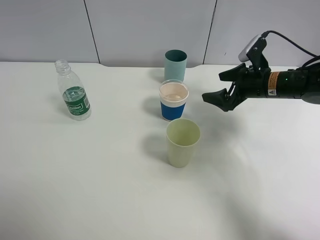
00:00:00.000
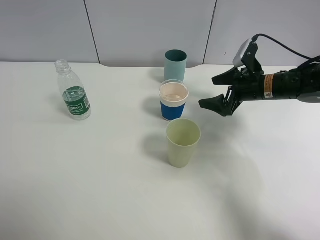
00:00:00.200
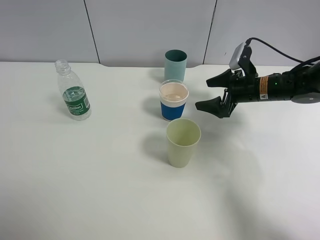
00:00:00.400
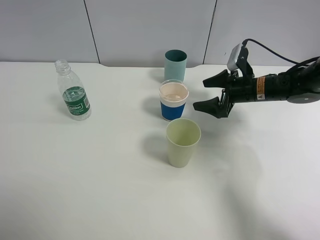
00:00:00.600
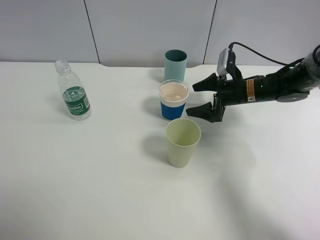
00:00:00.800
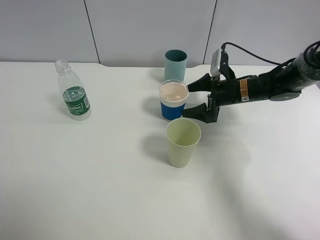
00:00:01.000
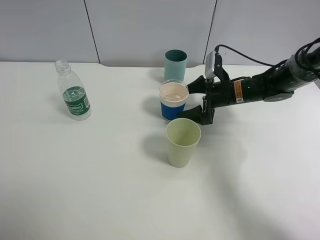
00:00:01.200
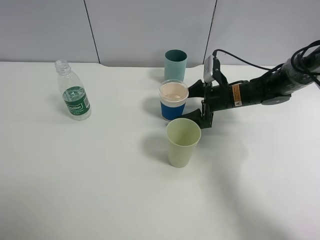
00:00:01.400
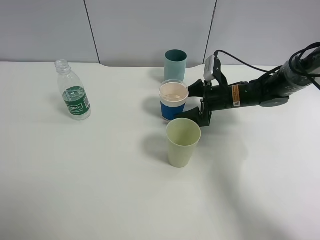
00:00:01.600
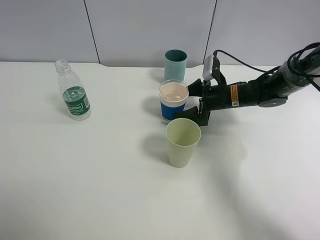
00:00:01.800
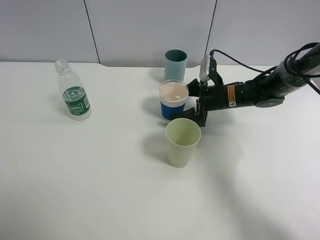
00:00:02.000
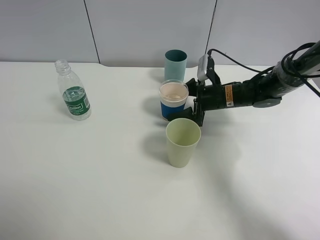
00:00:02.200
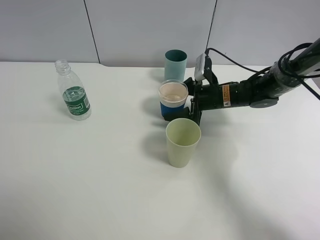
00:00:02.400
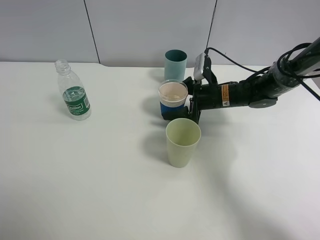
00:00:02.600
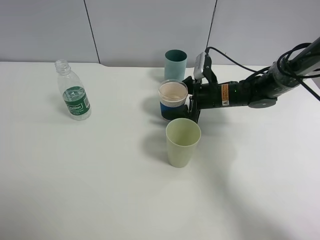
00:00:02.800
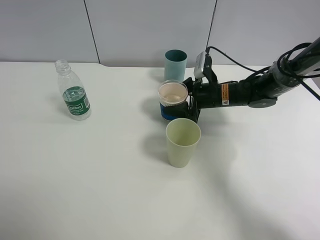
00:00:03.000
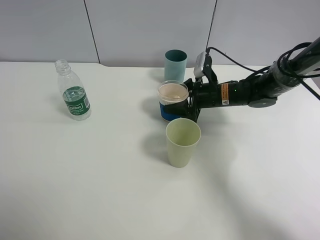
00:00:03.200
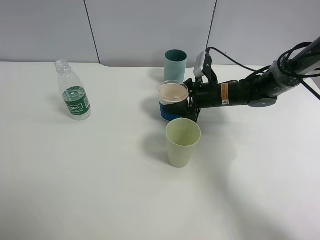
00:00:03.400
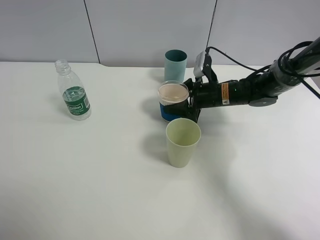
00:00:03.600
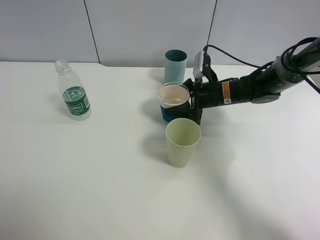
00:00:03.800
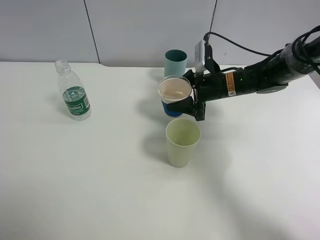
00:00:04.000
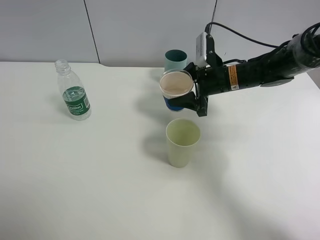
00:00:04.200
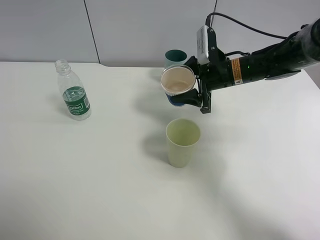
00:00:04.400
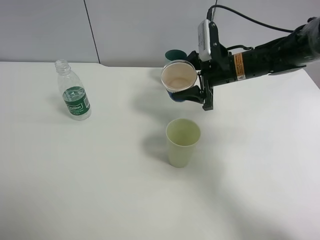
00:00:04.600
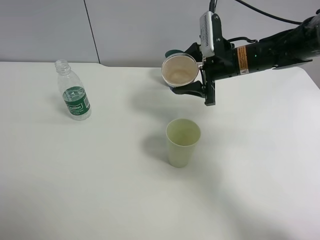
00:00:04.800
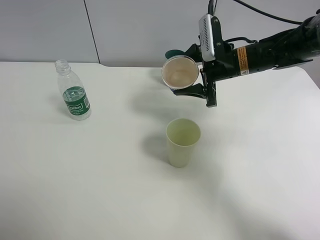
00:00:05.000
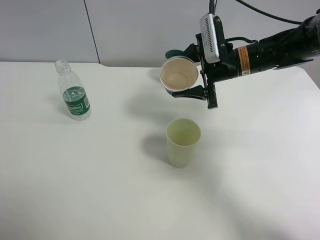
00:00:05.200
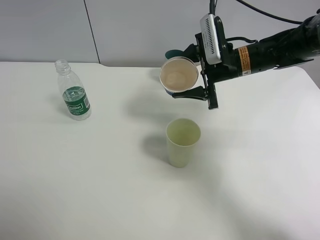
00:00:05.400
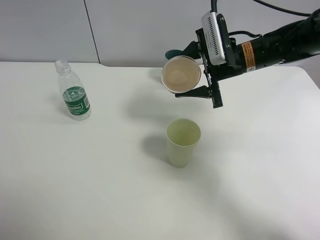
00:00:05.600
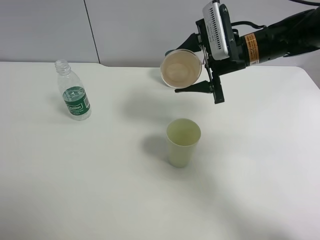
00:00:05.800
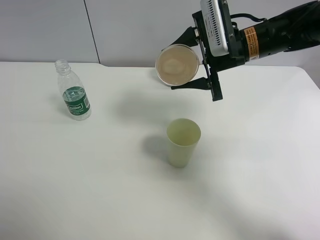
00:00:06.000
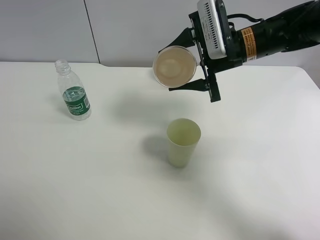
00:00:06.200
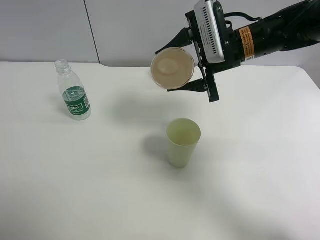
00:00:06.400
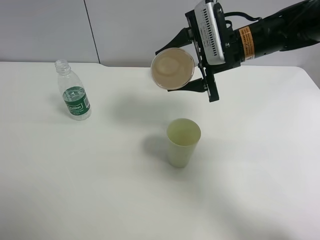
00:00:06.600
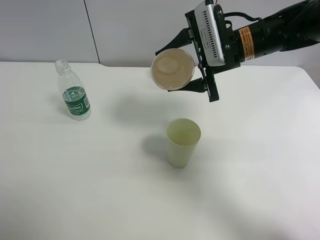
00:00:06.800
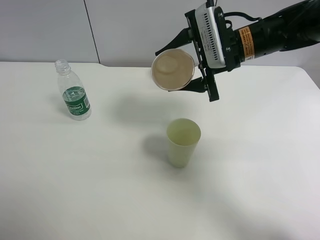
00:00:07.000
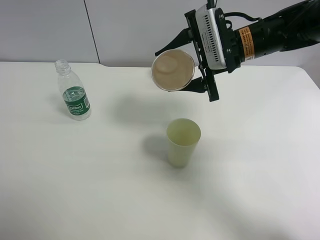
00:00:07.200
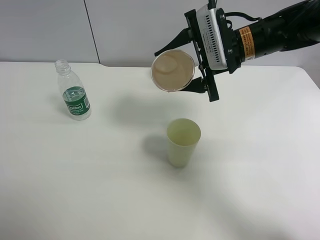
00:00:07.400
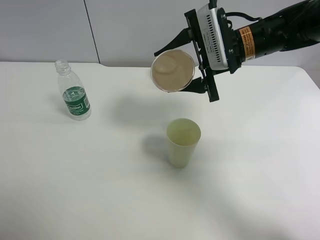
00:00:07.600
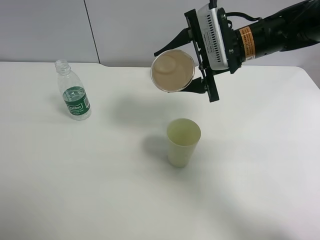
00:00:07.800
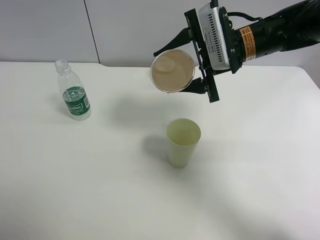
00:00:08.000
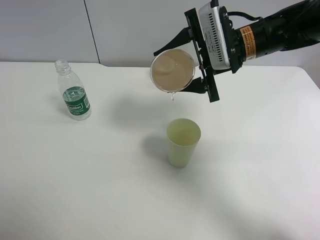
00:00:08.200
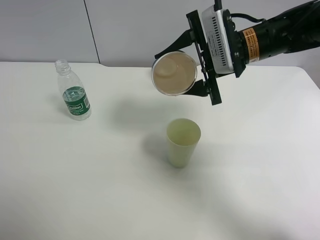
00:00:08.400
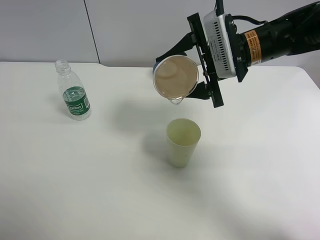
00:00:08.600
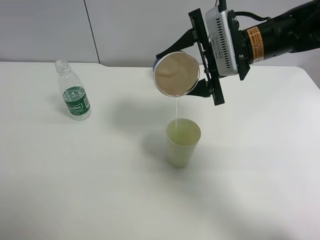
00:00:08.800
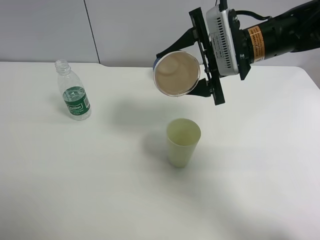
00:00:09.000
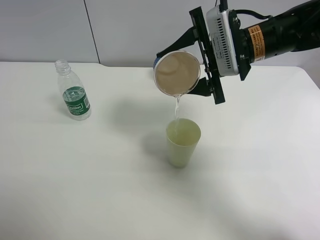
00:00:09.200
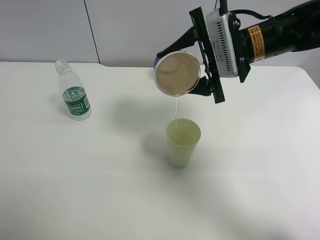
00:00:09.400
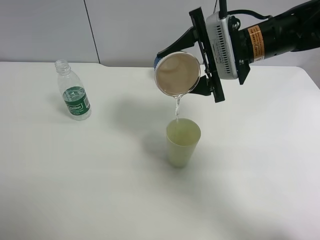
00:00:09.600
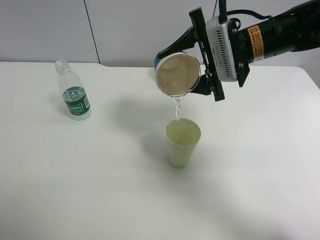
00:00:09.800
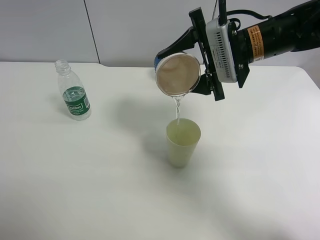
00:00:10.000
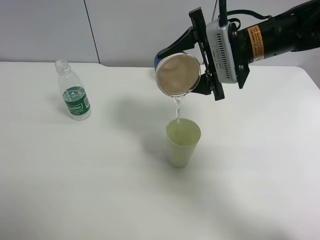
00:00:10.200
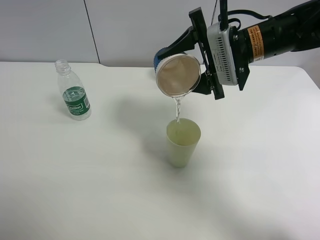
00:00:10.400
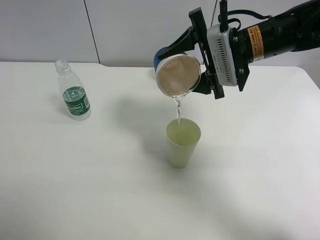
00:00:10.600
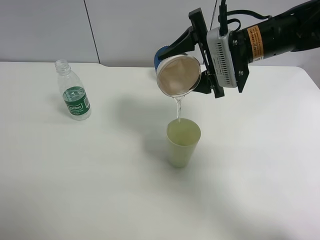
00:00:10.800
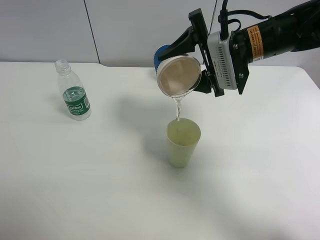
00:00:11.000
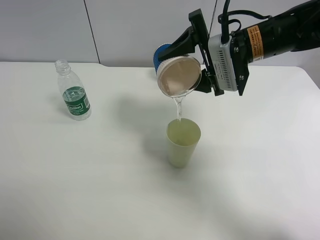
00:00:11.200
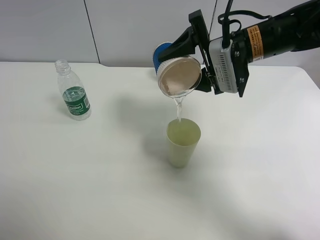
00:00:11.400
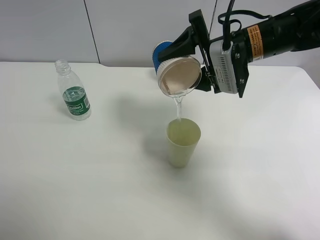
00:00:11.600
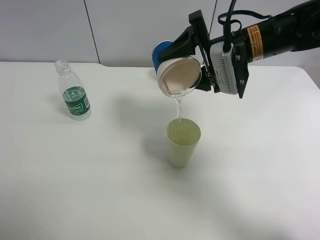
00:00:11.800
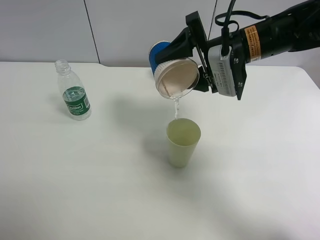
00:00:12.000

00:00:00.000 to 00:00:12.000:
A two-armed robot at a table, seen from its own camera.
Task of the whole recording: use a clamp to hold the bottle of the drink, pour the beverage into a random cup, then clamp the cup containing the drink and pour the drink into another random cup.
Step, 00:00:00.000 to 00:00:03.800: Pick up the paper cup with right gripper.
00:00:00.000 to 00:00:01.600: The right gripper shifts about 10 cm downward and to the left.
00:00:01.600 to 00:00:03.000: The right gripper closes.
00:00:03.000 to 00:00:04.400: The right gripper goes some 10 cm upward.
00:00:04.400 to 00:00:06.000: The right gripper moves upward, about 10 cm.
00:00:06.000 to 00:00:09.000: The grippers stay close to where they were, moving slightly.
00:00:09.000 to 00:00:10.400: There are only small adjustments of the grippers.
00:00:10.400 to 00:00:12.000: The grippers stay close to where they were, moving slightly.

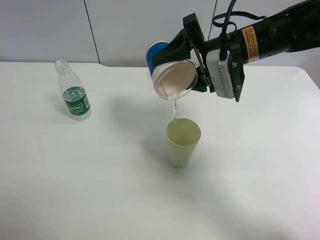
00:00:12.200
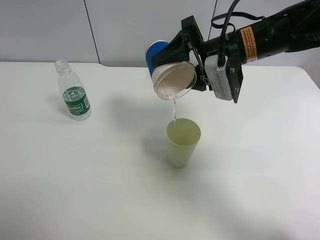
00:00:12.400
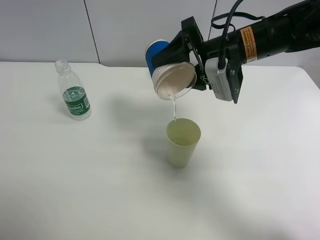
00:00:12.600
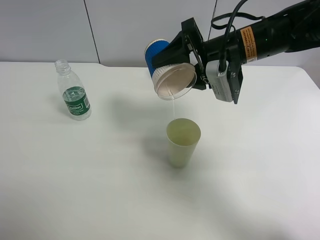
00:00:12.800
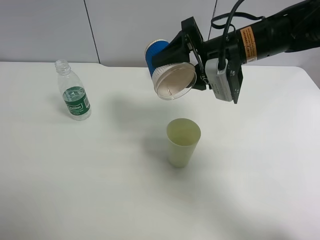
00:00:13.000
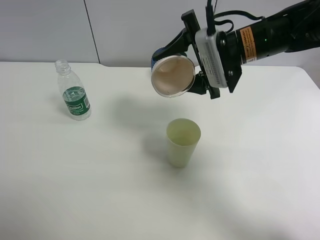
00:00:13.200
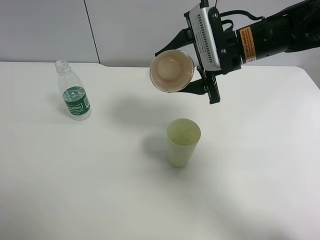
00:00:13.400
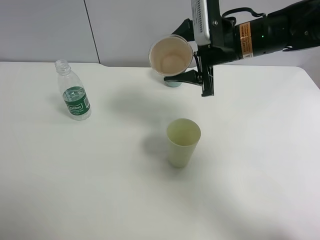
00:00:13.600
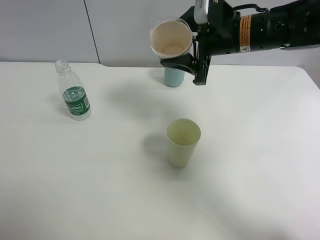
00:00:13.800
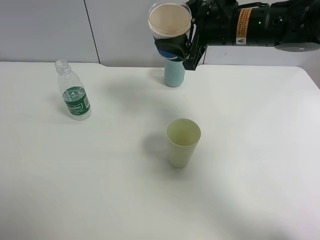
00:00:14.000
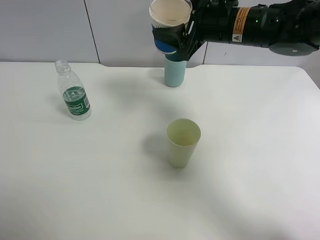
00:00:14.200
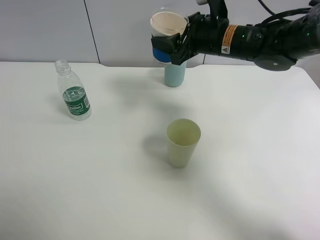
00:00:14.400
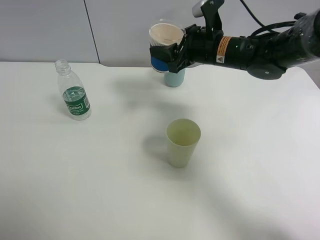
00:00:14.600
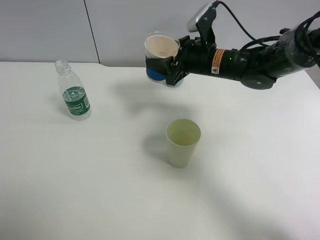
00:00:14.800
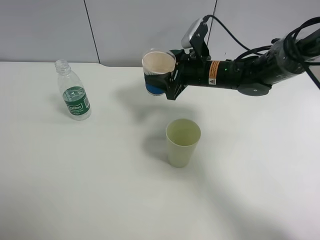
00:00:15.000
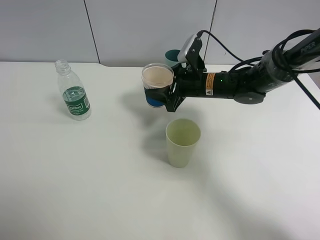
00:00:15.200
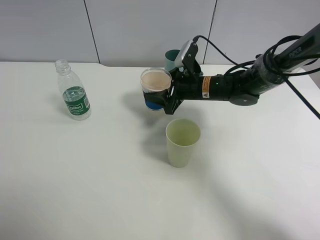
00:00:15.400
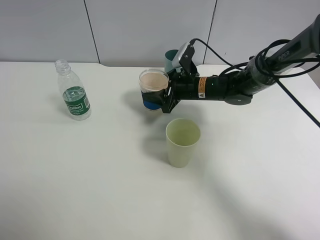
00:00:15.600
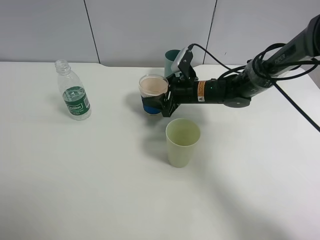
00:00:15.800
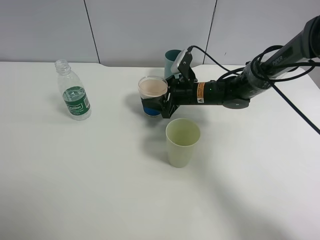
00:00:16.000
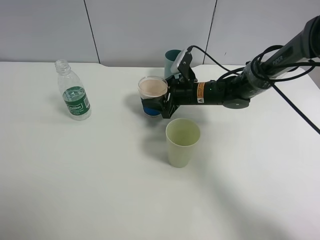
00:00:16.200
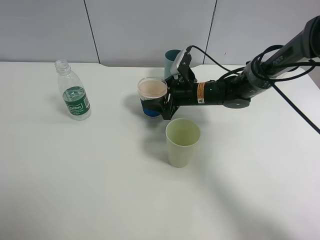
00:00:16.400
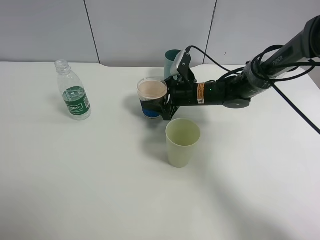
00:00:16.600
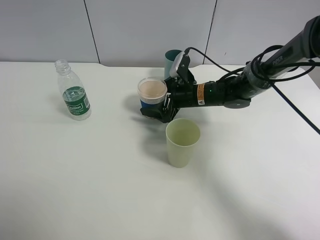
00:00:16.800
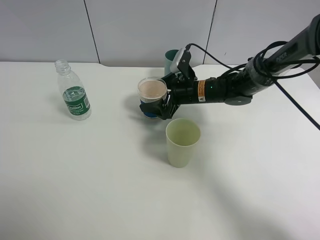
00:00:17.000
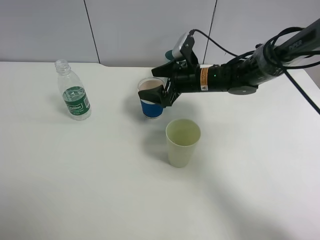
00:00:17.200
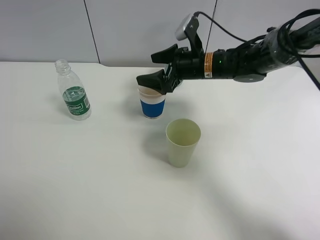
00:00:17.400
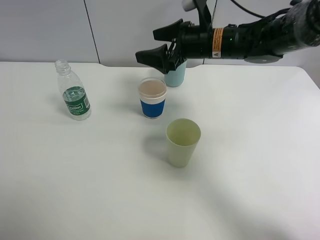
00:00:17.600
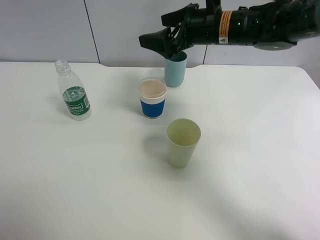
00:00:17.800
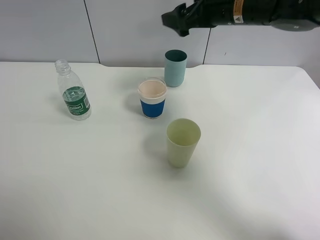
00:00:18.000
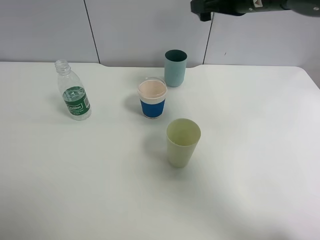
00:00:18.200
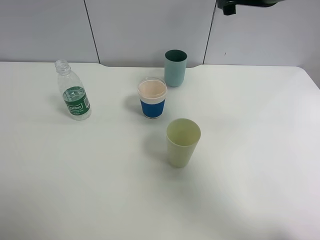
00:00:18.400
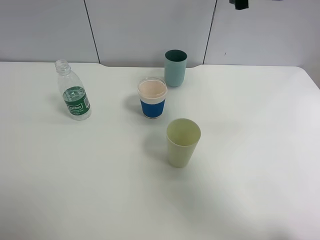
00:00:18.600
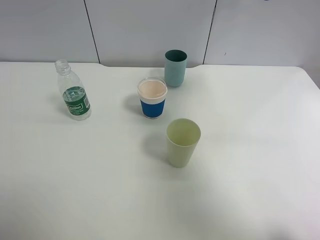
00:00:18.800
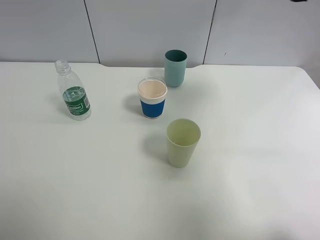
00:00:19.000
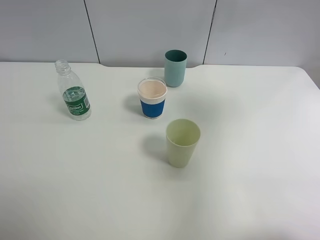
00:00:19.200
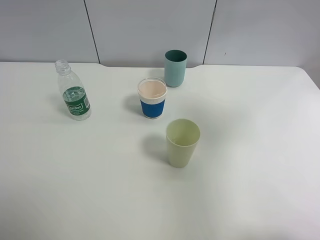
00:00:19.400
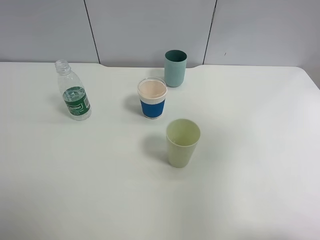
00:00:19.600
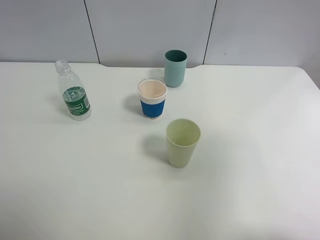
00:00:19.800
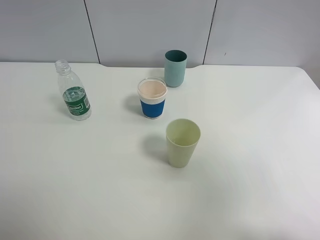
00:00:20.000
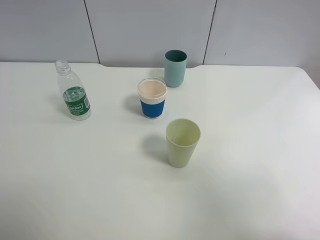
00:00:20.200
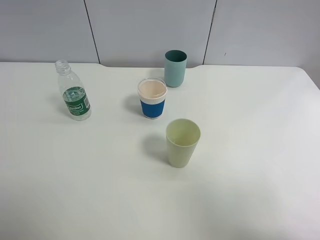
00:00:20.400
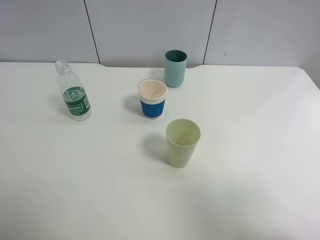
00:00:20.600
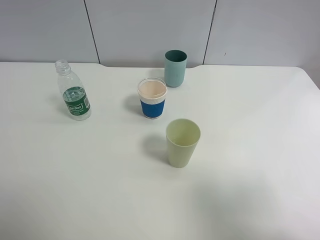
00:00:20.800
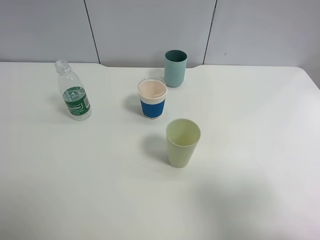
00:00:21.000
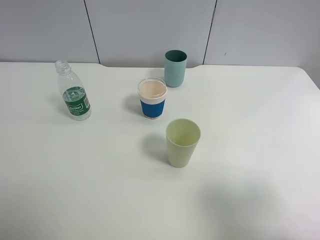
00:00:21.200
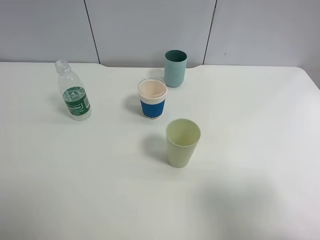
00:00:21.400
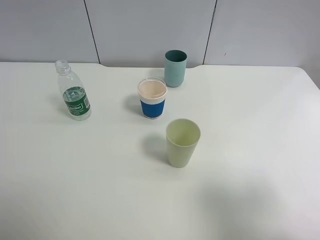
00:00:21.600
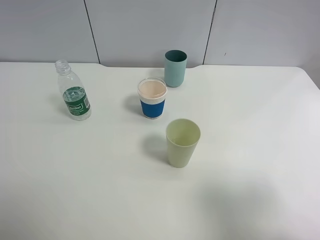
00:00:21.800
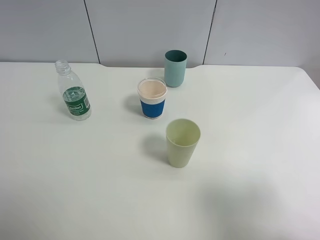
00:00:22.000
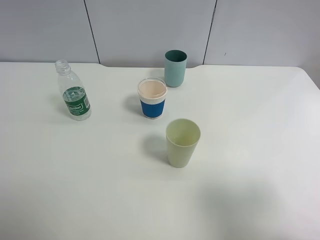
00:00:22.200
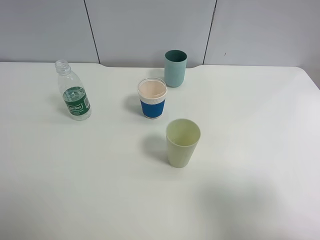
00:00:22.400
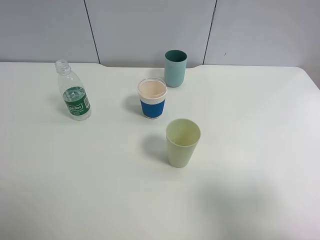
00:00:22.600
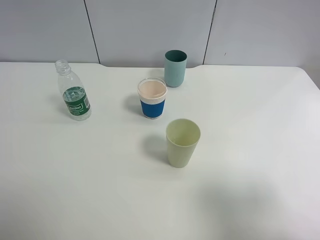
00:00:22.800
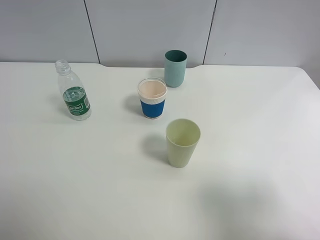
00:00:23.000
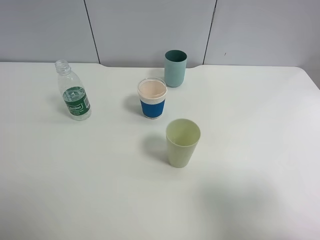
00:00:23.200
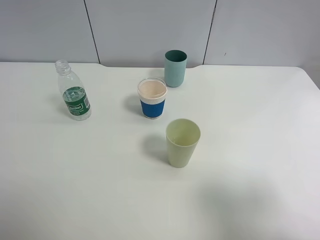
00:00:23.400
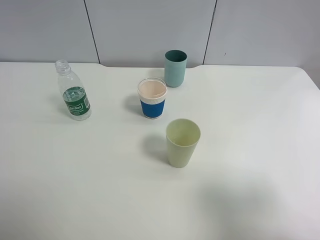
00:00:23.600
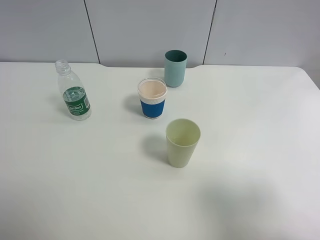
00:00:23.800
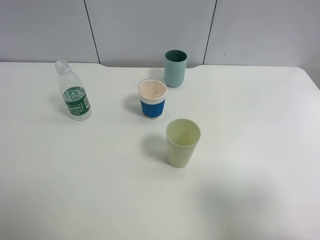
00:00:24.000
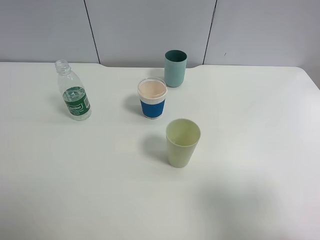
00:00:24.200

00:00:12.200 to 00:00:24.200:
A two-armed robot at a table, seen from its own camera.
Task of the whole recording: use a clamp to hold the bottle of the drink, pour the beverage into a random cup, then clamp the cup containing the drink and pour the drink into another random cup.
Step, 00:00:13.600 to 00:00:17.000: Place the paper cup on the table with right gripper.
00:00:13.800 to 00:00:15.200: The right gripper heads downward, covering roughly 15 cm.
00:00:15.200 to 00:00:16.600: The grippers stay close to where they were, moving slightly.
00:00:16.600 to 00:00:18.200: The right gripper goes approximately 25 cm upward, and opens its fingers.
00:00:18.200 to 00:00:19.800: The right gripper goes approximately 35 cm backward and to the right.
00:00:19.800 to 00:00:21.200: The right gripper moves downward and backward, about 15 cm.
00:00:21.200 to 00:00:24.200: Both grippers stay put.
